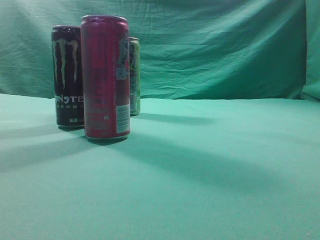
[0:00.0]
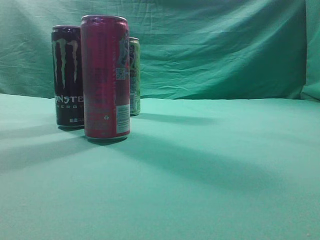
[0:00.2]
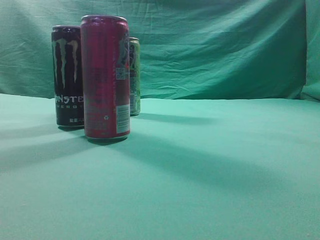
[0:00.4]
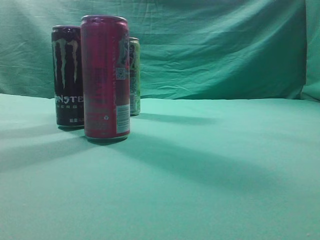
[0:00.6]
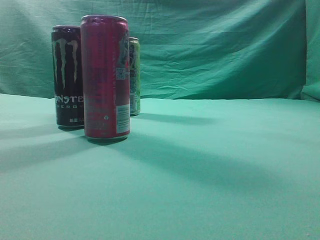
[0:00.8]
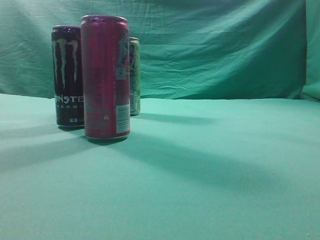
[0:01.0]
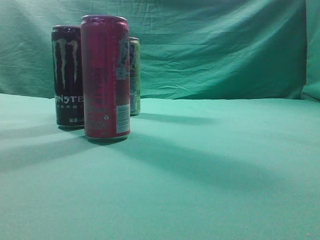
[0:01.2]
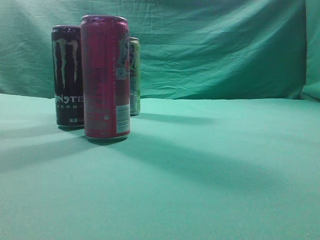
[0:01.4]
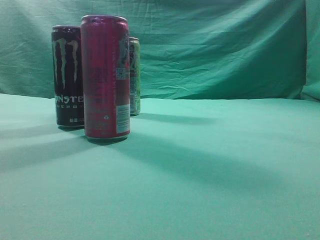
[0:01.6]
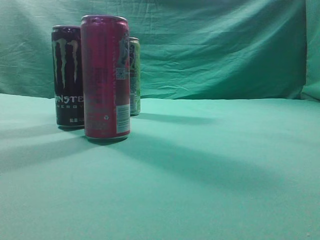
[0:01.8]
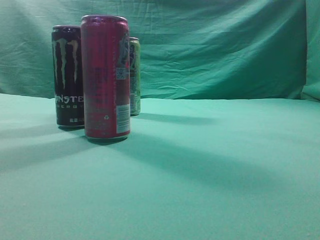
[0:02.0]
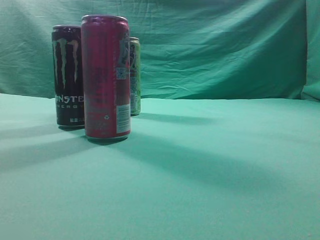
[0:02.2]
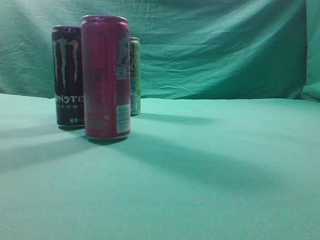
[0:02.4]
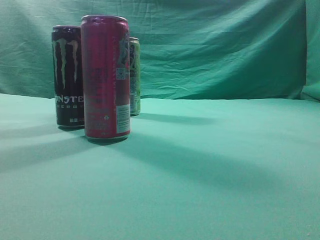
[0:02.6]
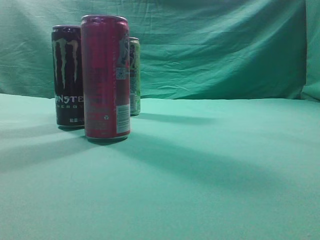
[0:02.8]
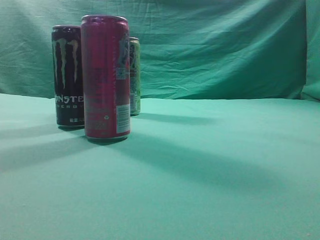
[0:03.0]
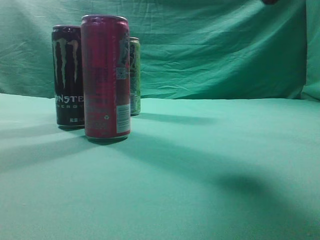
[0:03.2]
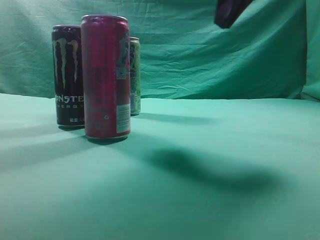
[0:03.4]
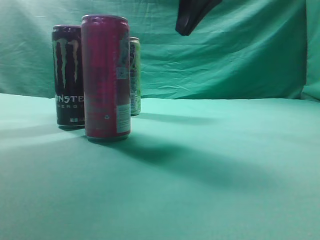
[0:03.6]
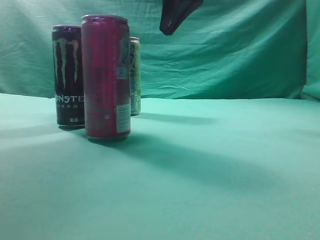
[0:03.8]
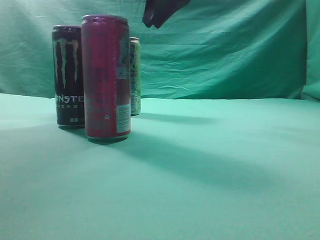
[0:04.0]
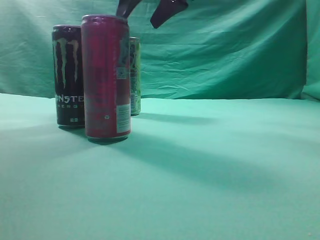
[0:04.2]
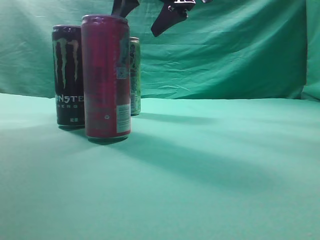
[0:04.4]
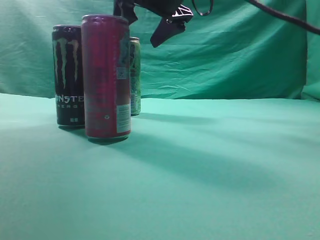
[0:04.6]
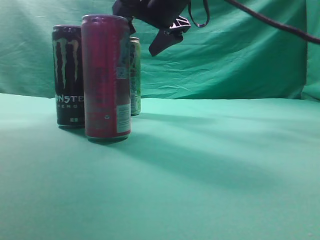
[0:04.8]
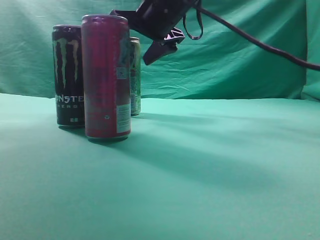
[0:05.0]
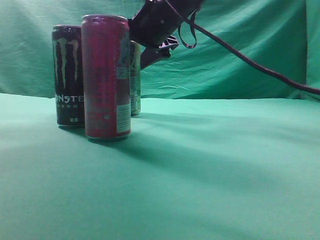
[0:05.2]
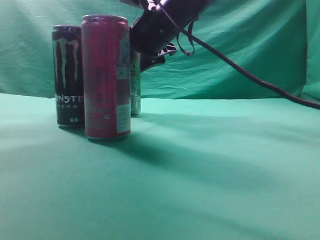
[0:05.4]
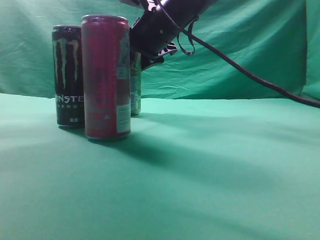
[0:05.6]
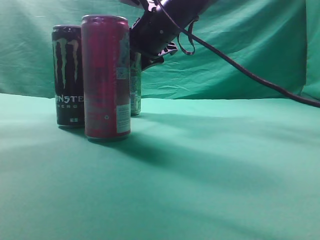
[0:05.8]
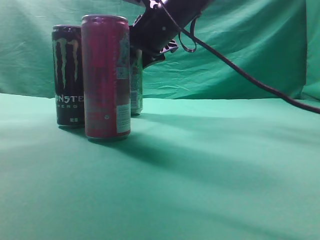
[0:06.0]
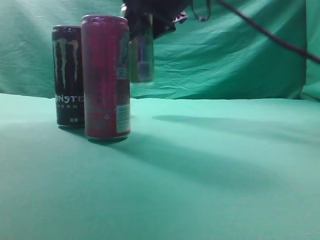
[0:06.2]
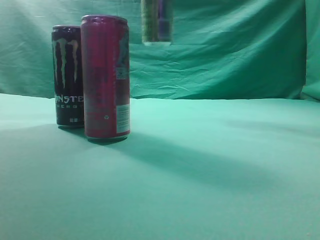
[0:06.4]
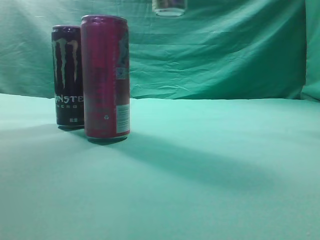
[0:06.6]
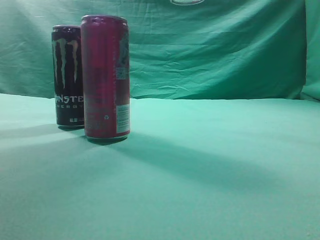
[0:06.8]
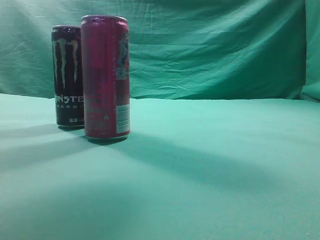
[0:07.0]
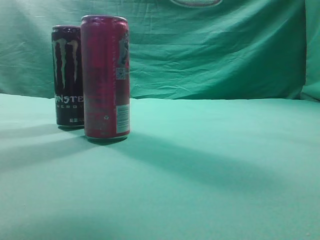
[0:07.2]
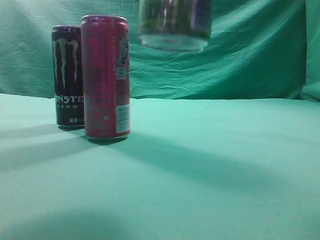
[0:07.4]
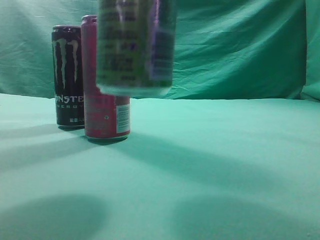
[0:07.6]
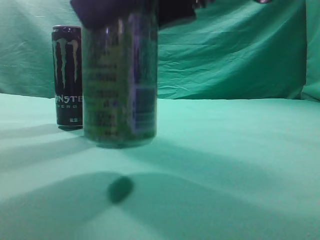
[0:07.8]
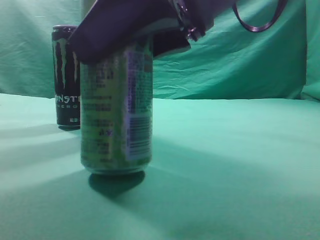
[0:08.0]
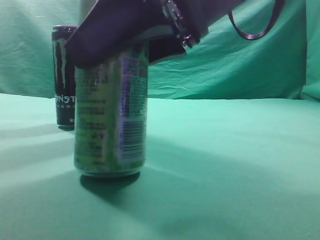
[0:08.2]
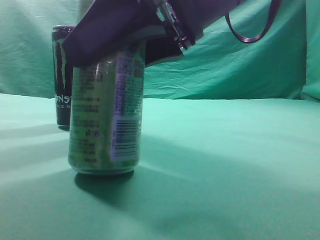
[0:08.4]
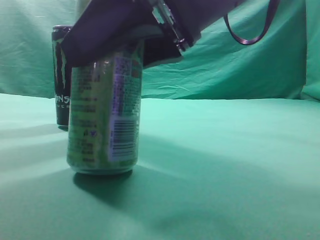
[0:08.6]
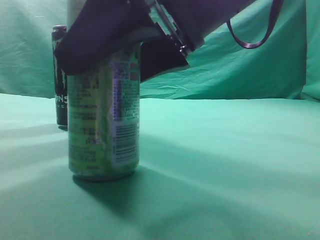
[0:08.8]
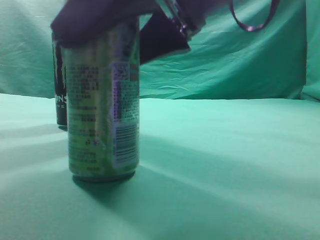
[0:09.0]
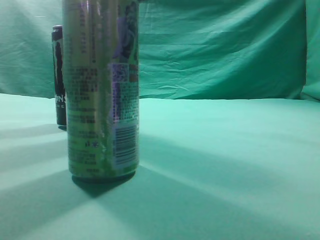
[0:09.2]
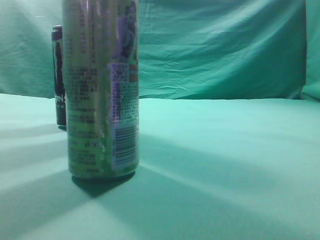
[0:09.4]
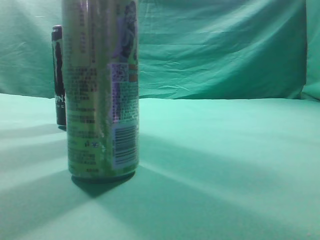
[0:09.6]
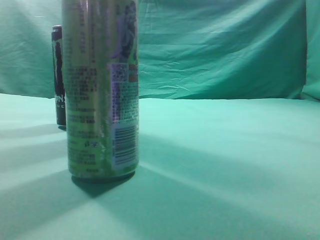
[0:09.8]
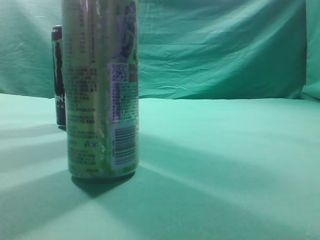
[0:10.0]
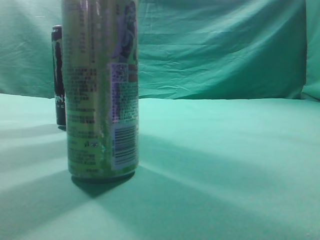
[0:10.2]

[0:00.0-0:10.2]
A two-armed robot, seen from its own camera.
Task of the whole recording: move one drink among three beverages.
Step, 0:00.0 to 0:06.0: Grasp the beverage bottle placed at the back of the desk.
Step, 0:06.2 to 0:09.4: Place the beverage bottle to the front of the table.
0:03.0 to 0:04.4: The right gripper goes some 30 cm forward and to the left, and opens.
0:04.4 to 0:05.8: The right gripper moves downward, roughly 10 cm.
0:05.8 to 0:07.2: The right gripper heads backward, to the right and upward, covering approximately 30 cm.
0:07.2 to 0:08.8: The right gripper goes some 15 cm downward and to the left.
0:08.8 to 0:10.2: The right gripper goes about 25 cm upward, to the right and backward, and closes its fingers.
